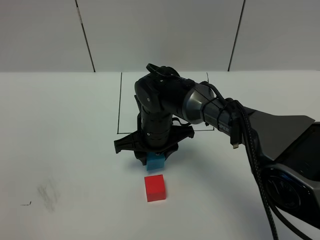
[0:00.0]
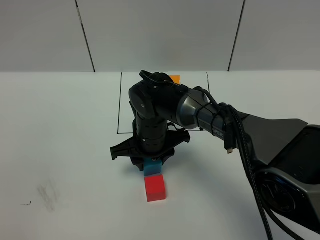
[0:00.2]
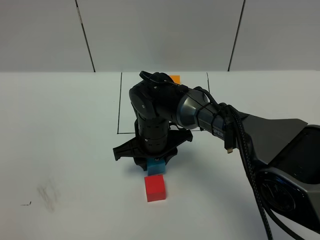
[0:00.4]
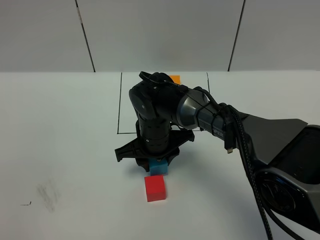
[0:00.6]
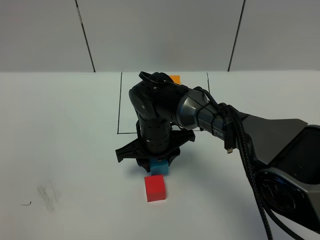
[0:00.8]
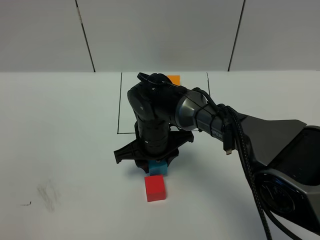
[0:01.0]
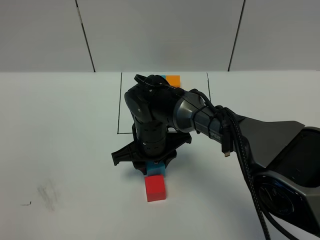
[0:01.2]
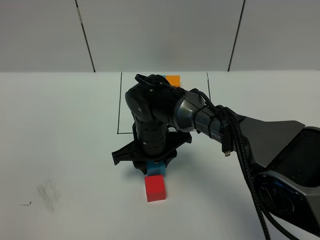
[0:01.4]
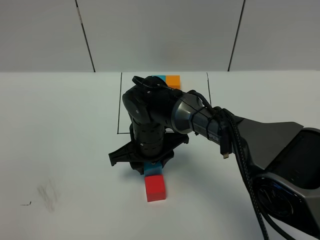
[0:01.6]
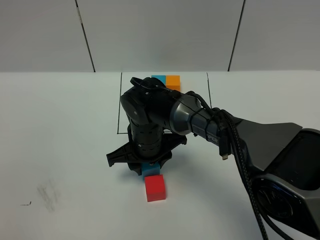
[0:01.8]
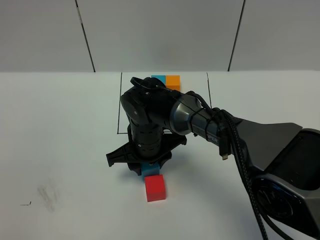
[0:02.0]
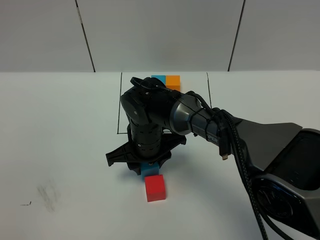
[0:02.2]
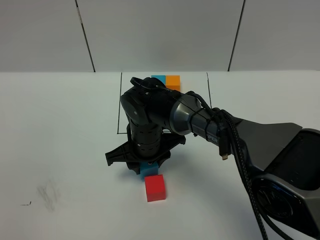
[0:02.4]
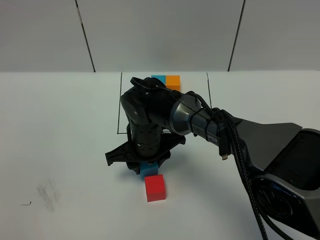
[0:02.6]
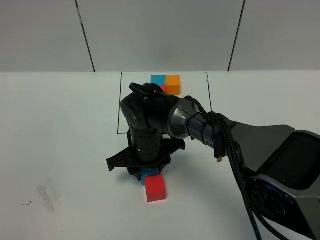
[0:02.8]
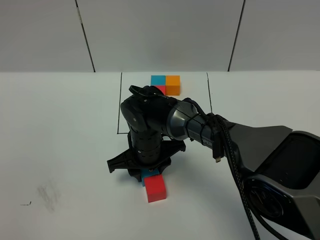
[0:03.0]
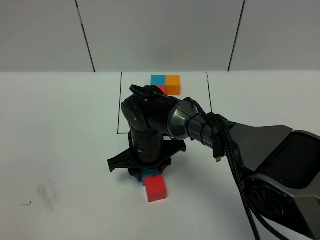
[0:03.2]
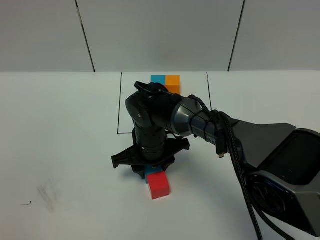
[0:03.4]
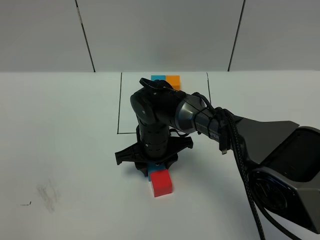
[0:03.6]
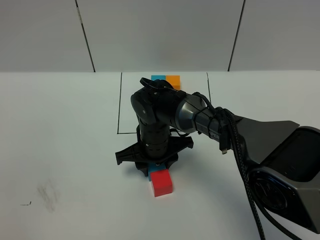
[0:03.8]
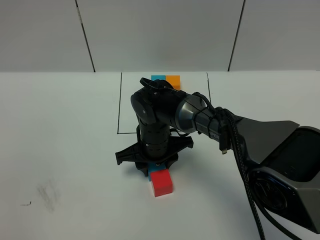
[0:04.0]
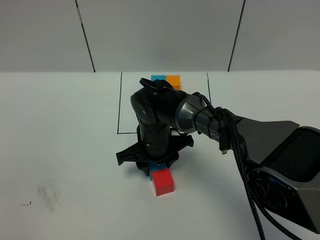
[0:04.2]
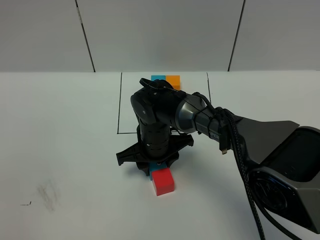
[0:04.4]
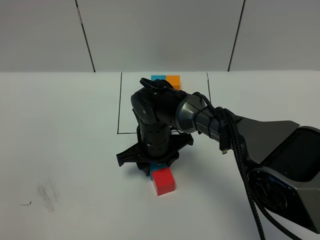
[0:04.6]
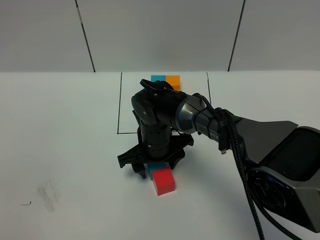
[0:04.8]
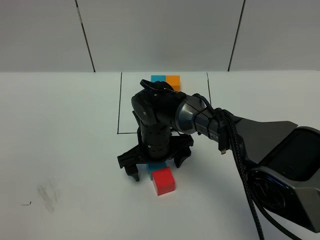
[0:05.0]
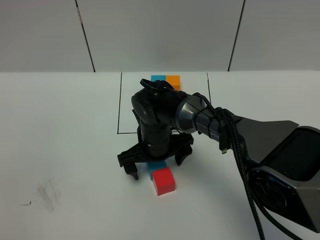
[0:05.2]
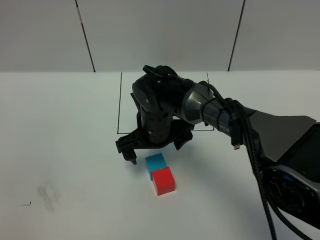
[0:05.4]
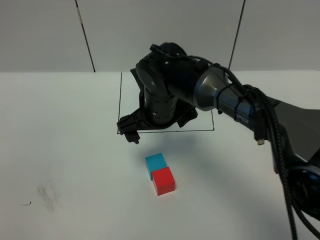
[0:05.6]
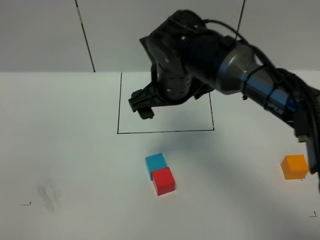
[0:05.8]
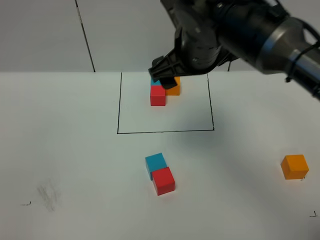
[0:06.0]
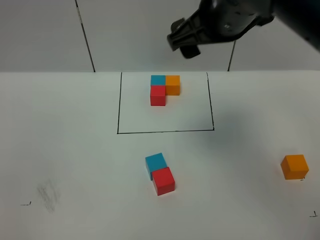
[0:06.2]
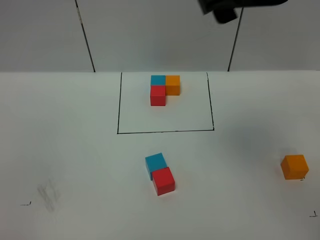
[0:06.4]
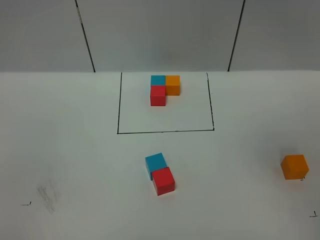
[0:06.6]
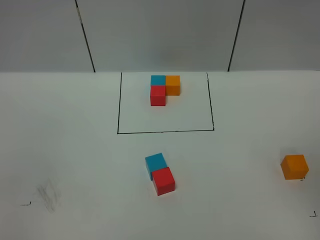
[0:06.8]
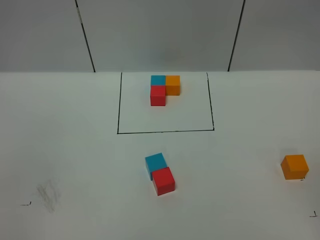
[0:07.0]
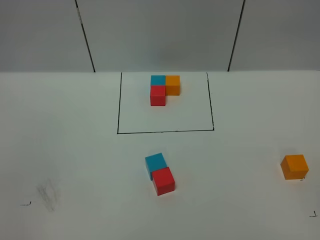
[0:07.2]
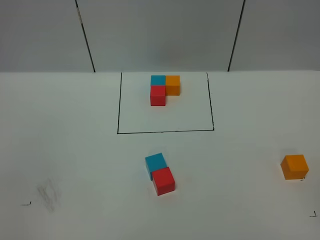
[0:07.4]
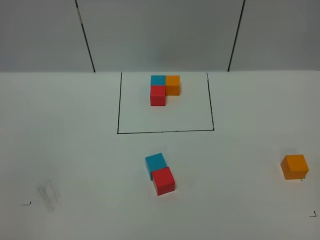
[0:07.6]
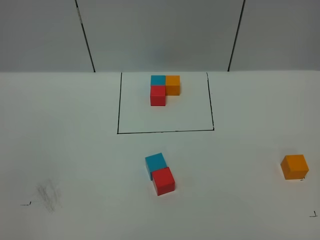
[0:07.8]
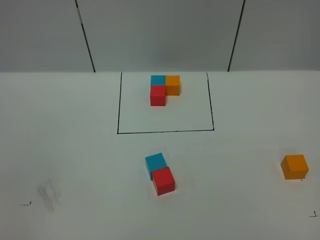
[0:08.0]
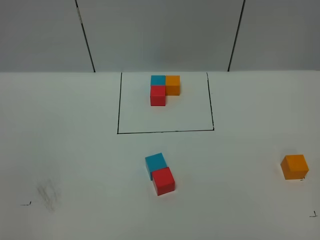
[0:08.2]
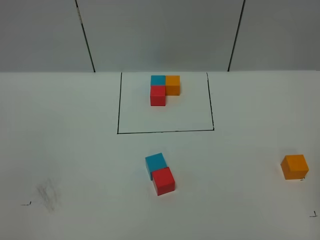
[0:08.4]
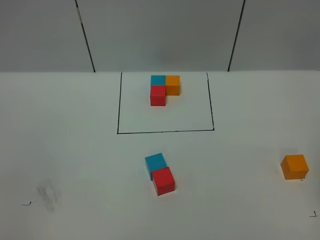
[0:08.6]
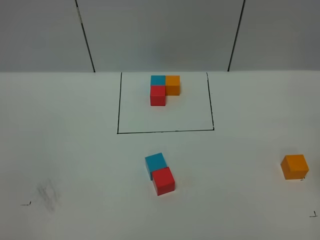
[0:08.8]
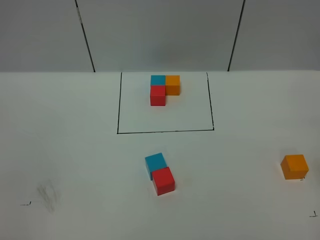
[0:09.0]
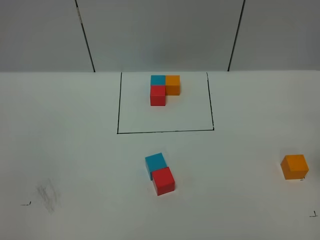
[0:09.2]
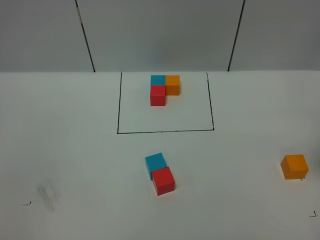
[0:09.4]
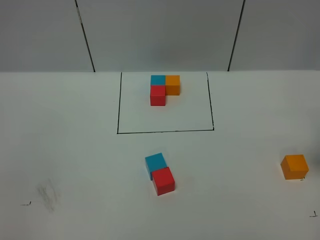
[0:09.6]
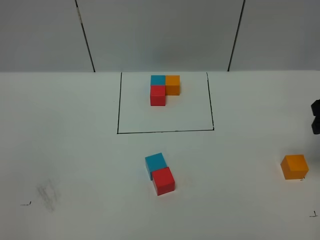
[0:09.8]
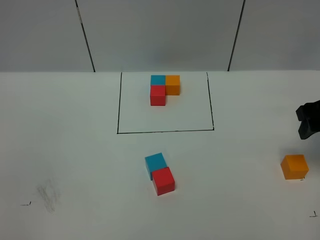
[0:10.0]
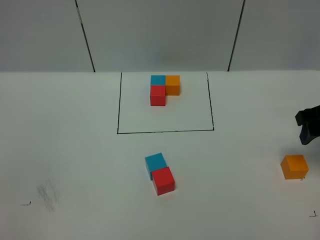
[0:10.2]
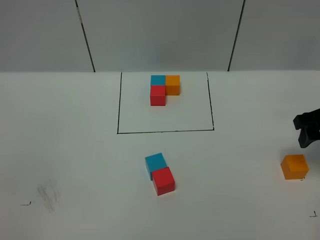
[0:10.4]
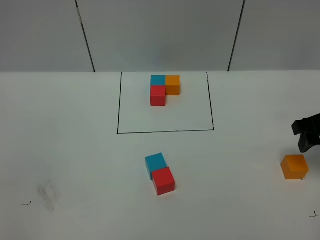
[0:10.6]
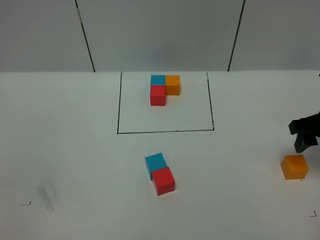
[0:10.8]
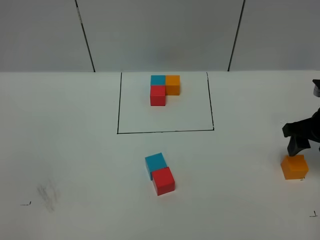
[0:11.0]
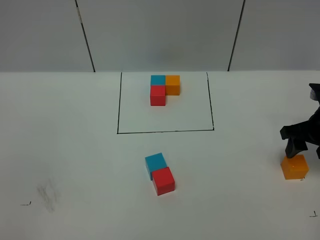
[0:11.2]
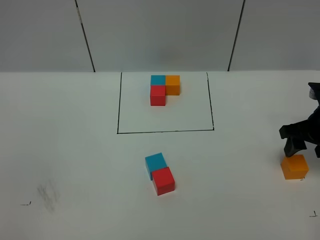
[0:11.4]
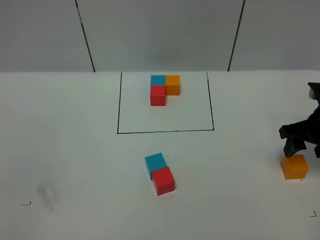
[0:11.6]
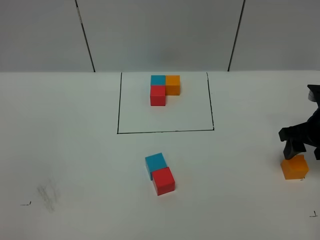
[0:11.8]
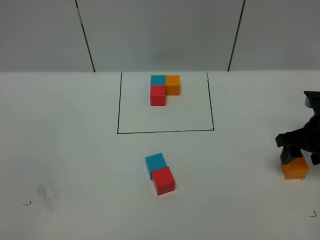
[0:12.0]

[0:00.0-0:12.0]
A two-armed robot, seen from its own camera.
Task of the whole recording: According to the building block template in front, assemble the scattered blocks together.
Step, 0:00.0 to 0:05.0: Put the blue cube on the behind of the red cube.
0:00.0 to 0:04.4: The grippers make only small movements.
0:04.4 to 0:06.0: The right gripper is displaced upward by some 25 cm, and opens.
0:06.0 to 0:07.6: The right gripper goes about 35 cm to the right, backward and upward.
0:09.0 to 0:10.4: The right gripper heads downward and forward, covering approximately 10 cm.
0:10.4 to 0:12.0: The right gripper travels downward by roughly 5 cm.

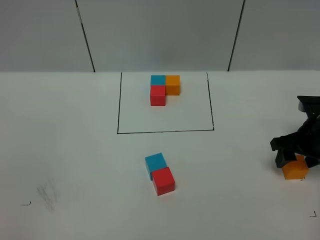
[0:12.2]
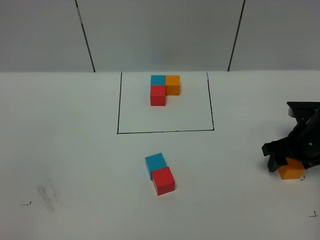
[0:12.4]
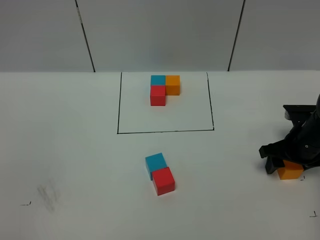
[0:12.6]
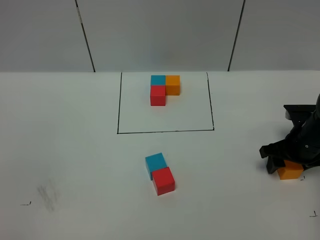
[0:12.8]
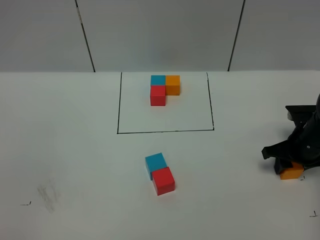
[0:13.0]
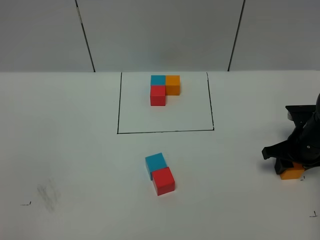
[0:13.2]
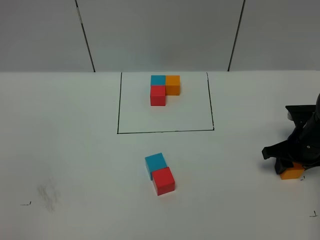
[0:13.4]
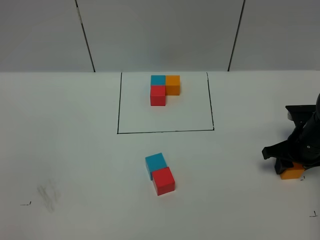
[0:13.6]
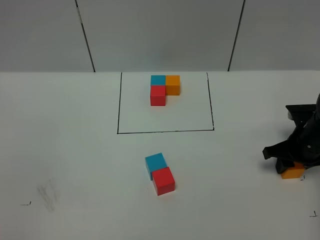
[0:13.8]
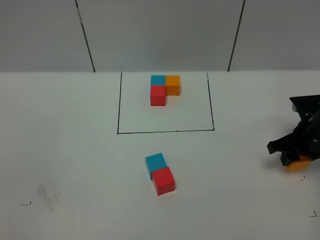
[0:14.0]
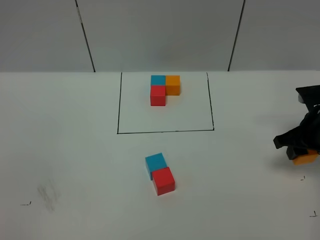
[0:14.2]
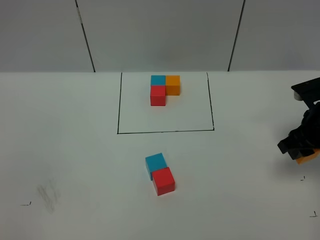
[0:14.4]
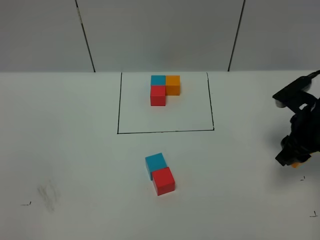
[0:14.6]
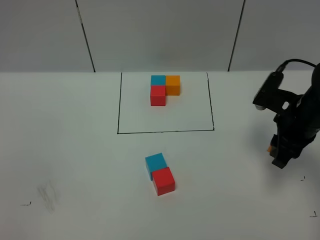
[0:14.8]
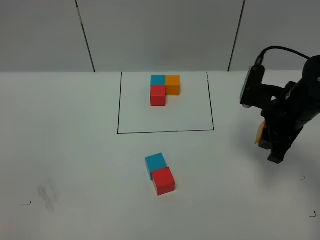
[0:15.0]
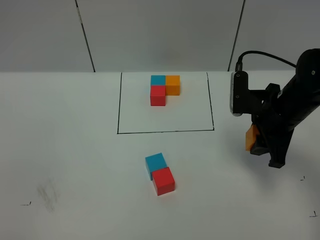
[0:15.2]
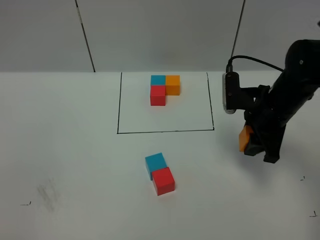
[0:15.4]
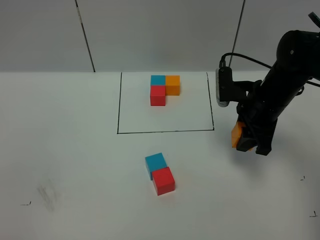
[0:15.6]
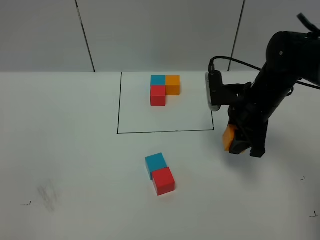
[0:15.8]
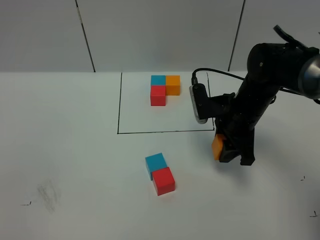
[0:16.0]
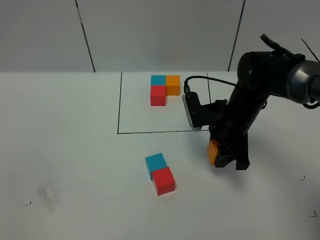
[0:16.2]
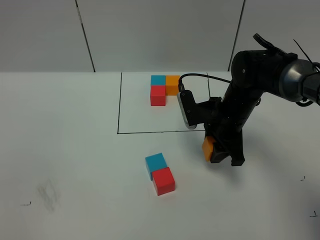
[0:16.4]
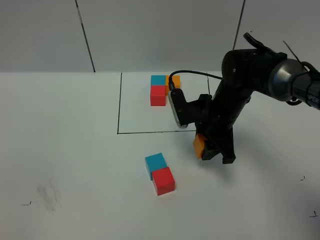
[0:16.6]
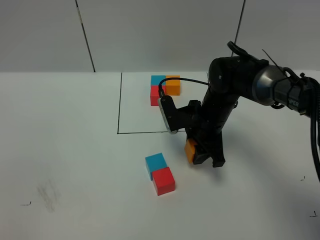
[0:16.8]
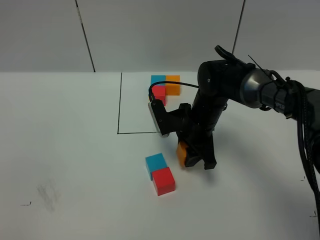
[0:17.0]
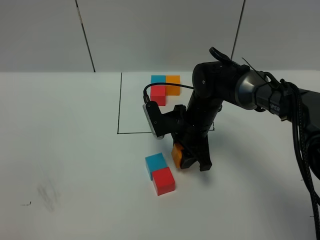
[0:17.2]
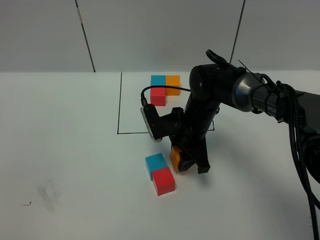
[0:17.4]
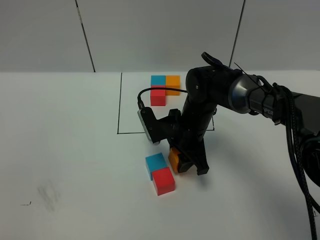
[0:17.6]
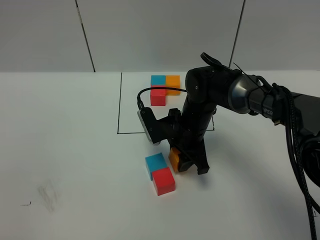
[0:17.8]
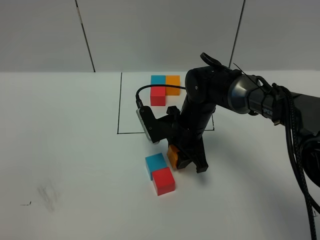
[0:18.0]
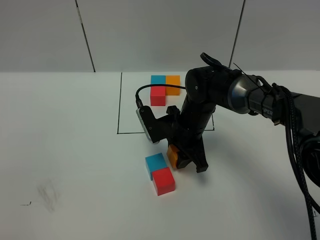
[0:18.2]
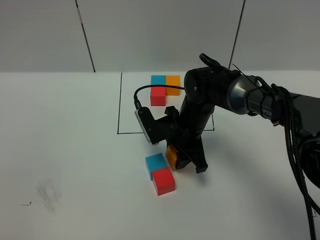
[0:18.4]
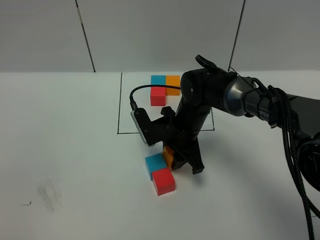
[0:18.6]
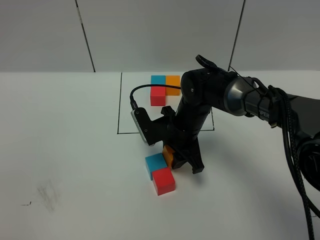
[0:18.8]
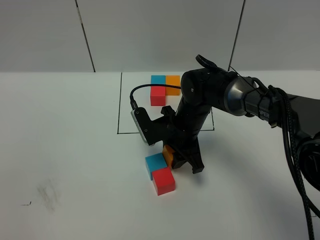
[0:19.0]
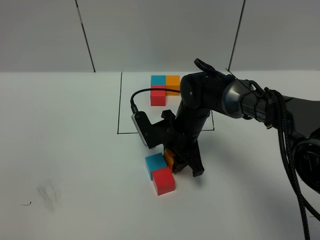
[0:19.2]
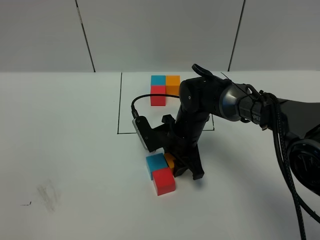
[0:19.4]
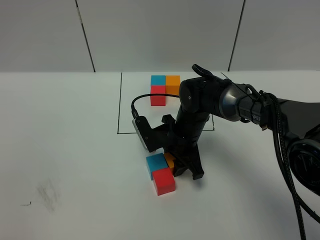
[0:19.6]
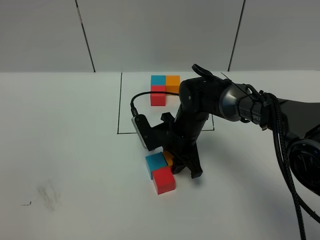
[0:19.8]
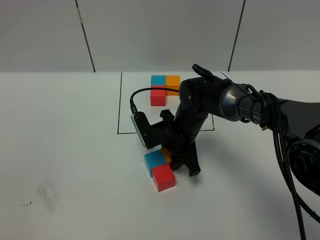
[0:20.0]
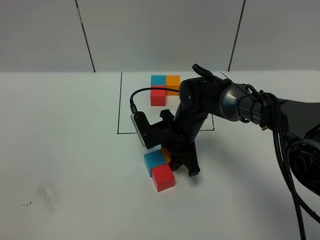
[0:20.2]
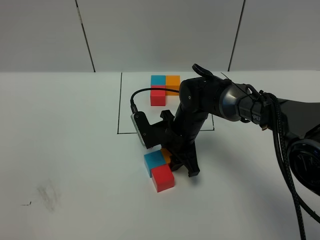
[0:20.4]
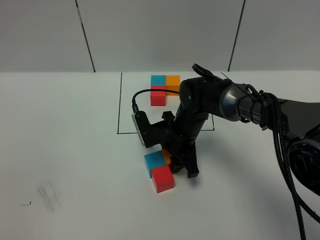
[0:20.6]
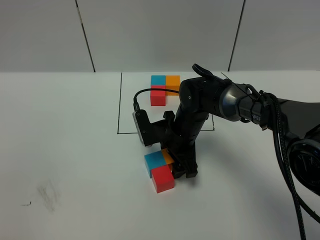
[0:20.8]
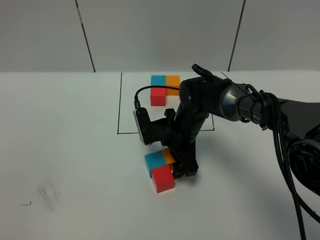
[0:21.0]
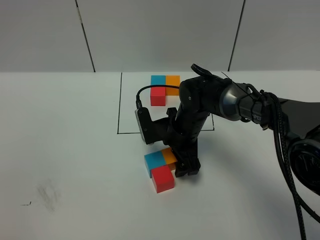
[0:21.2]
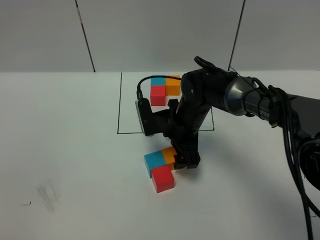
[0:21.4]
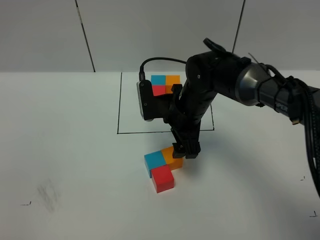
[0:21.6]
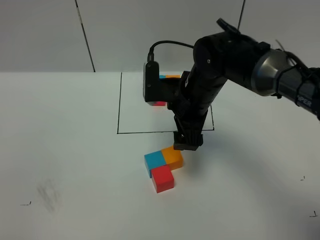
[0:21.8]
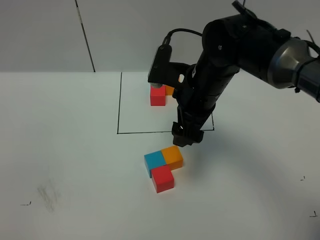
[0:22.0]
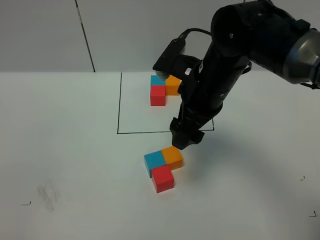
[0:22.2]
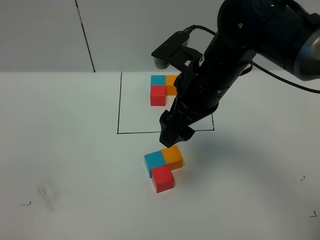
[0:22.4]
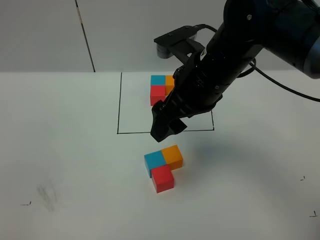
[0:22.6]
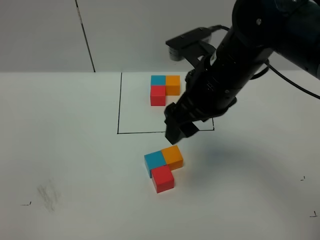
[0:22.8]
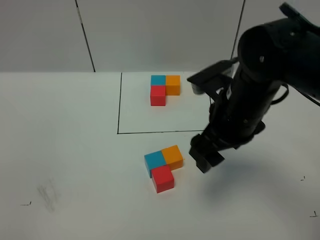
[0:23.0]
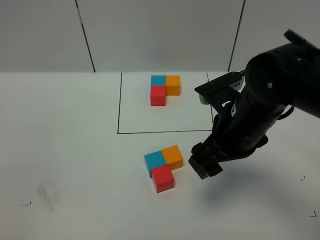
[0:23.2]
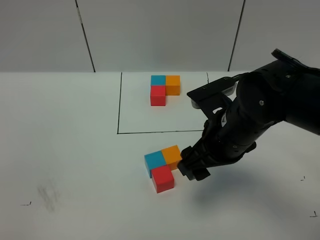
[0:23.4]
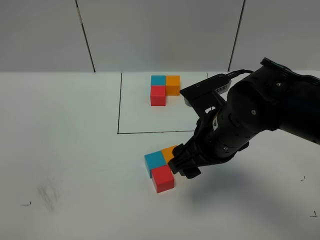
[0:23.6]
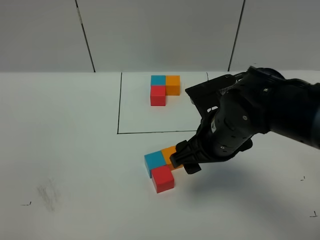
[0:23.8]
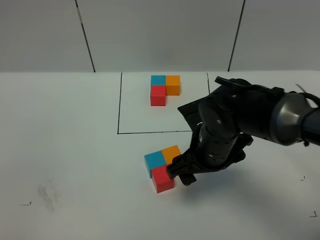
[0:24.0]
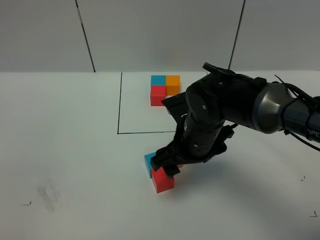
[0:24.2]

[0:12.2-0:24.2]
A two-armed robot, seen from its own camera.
Task of the whole recording: According to the building block template in front, assemble the scattered blocks together.
Step, 0:12.2 to 0:20.8: Put the orange cube on the right of the blue cube.
0:12.2 to 0:13.8: The right gripper closes.
0:13.8 to 0:15.2: The right gripper heads upward and to the left, covering approximately 15 cm.
0:15.2 to 0:16.6: The right gripper heads to the left and downward, covering some 10 cm.
0:16.6 to 0:18.2: The right gripper shifts roughly 5 cm to the left.
0:18.2 to 0:19.8: The grippers make only small movements.
0:19.8 to 0:21.2: The right gripper opens up.
0:21.2 to 0:22.6: The right gripper shifts approximately 20 cm upward.
0:22.6 to 0:24.2: The right gripper is displaced downward by approximately 10 cm.
